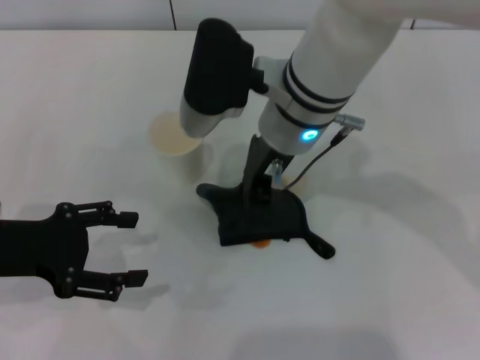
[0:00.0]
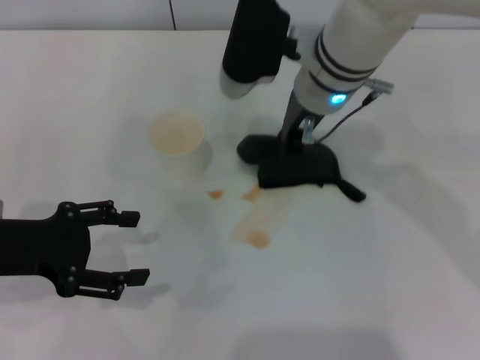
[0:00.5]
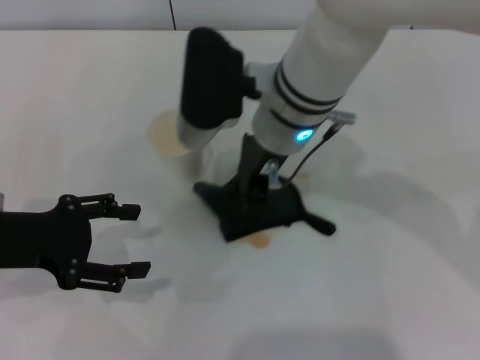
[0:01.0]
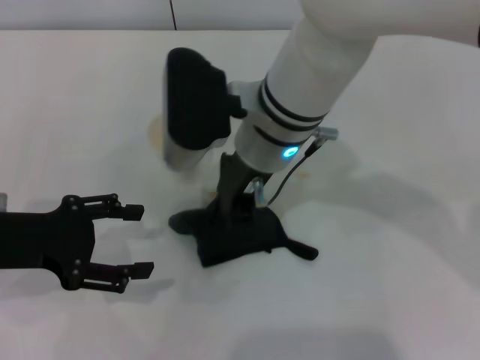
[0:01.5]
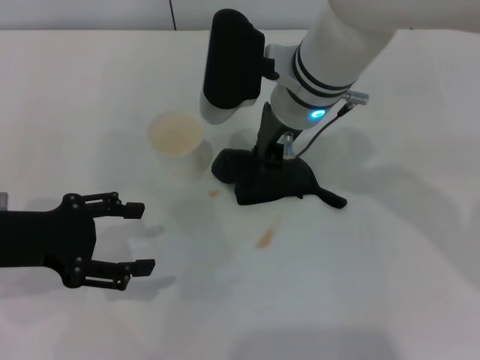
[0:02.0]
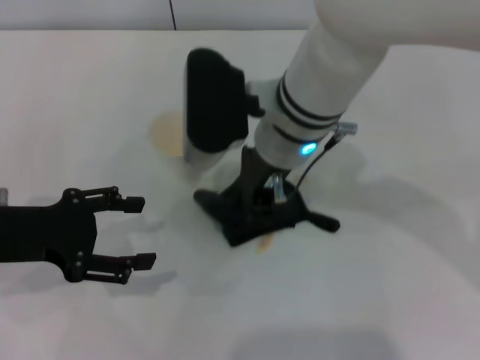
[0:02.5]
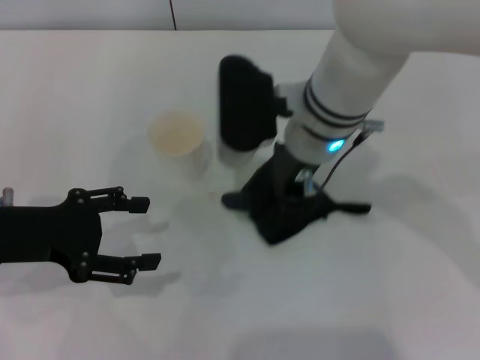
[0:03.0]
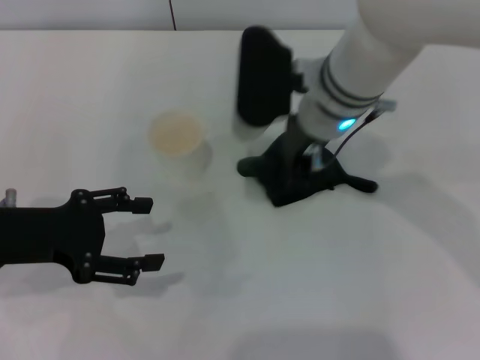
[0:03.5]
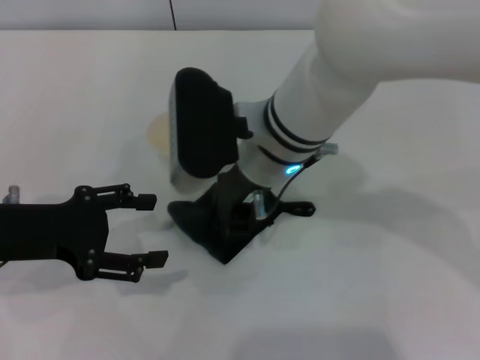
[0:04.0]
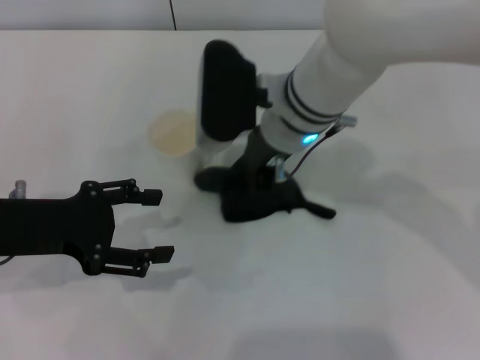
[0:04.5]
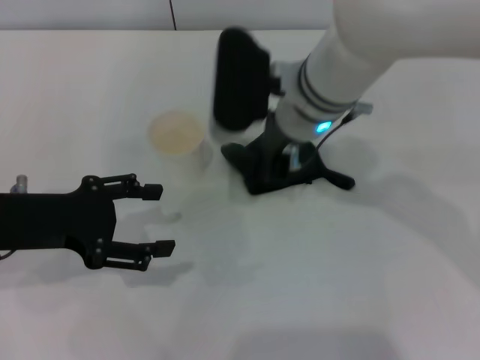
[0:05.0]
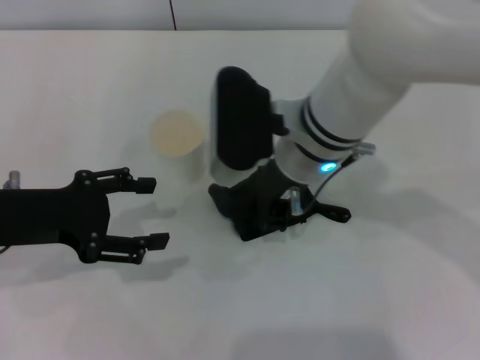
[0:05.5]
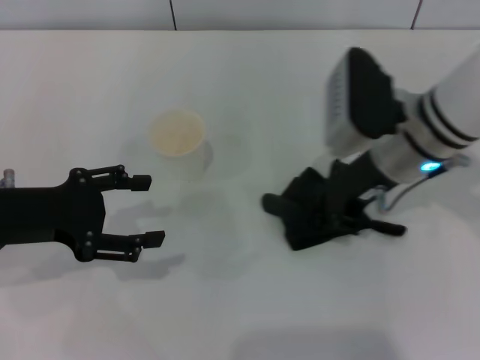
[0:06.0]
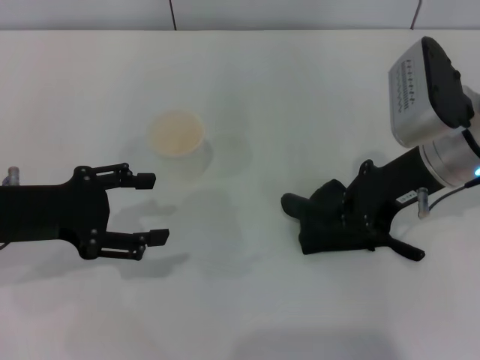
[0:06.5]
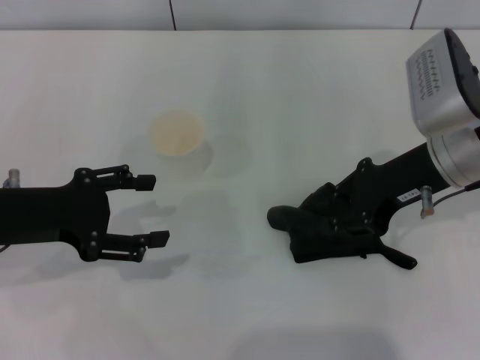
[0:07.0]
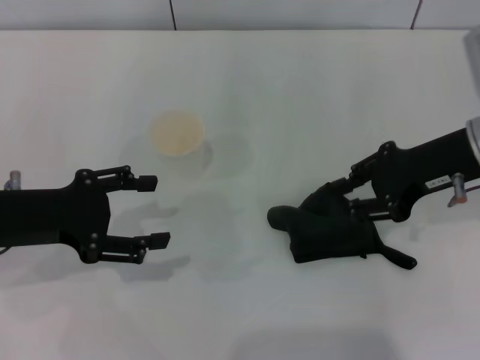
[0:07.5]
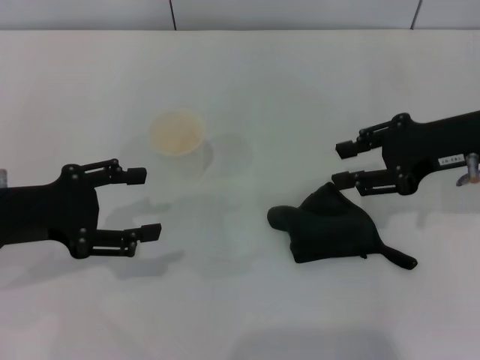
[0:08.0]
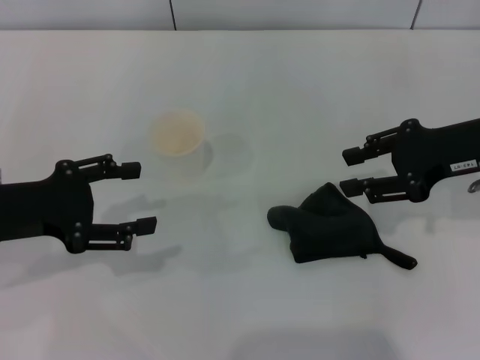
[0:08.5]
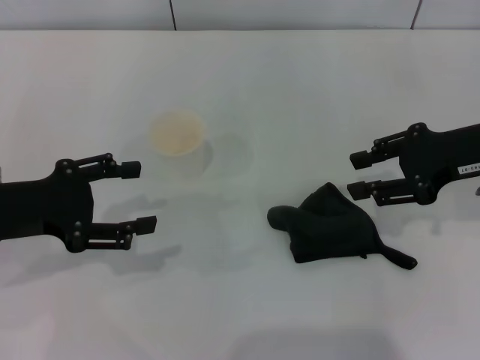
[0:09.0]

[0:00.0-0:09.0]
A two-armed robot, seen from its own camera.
Step, 0:00.0 to 0:06.0: Wipe the stains off the table with the right gripper.
Step, 0:06.5 to 0:08.0: Place the rag on the table with the right gripper.
0:00.0 to 0:04.5: The grippers make only small movements.
0:04.5 to 0:07.0: The right gripper shifts about 15 cm to the right.
0:07.0 to 0:09.0: The right gripper shifts about 5 cm to the right, and opens its fingers.
